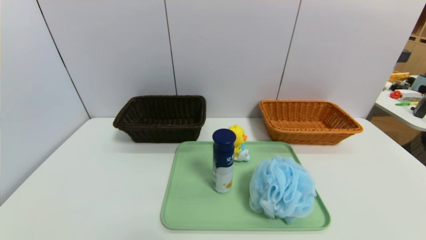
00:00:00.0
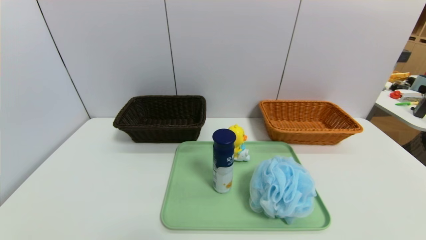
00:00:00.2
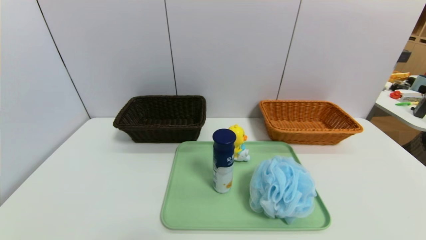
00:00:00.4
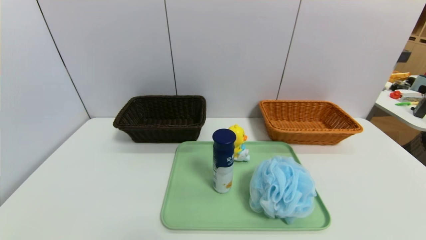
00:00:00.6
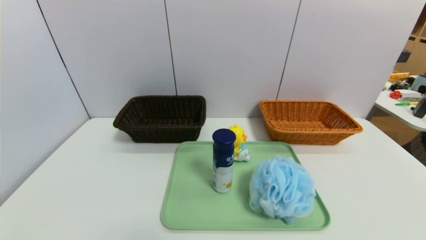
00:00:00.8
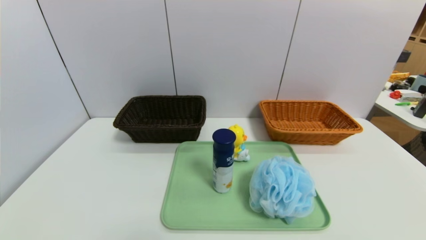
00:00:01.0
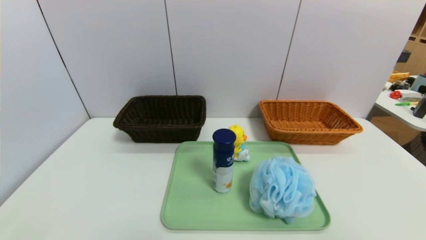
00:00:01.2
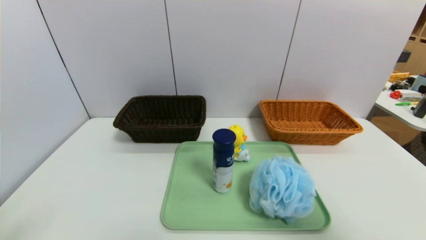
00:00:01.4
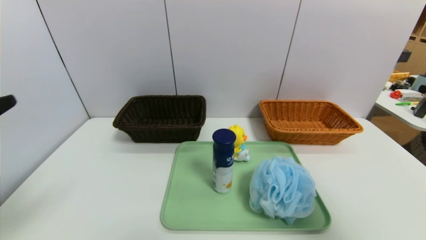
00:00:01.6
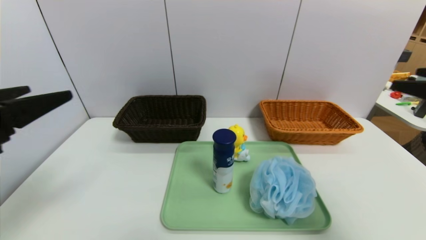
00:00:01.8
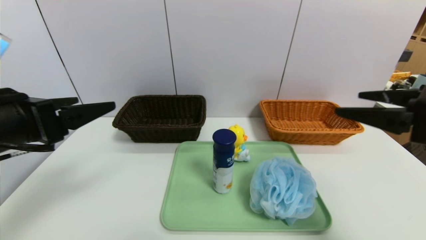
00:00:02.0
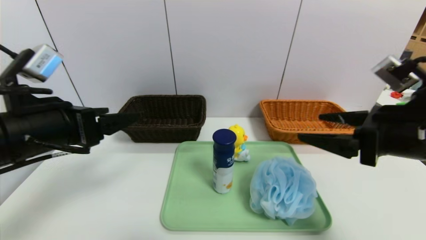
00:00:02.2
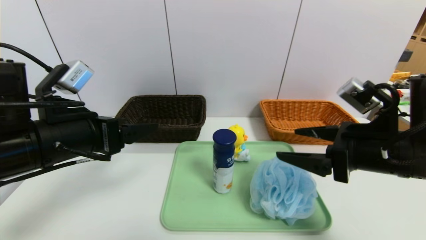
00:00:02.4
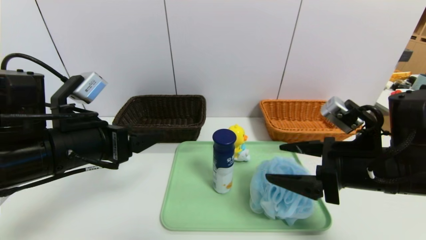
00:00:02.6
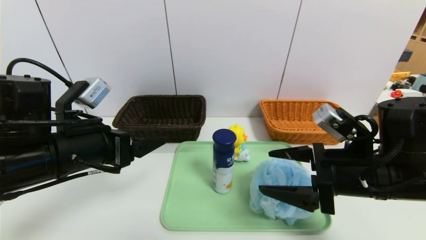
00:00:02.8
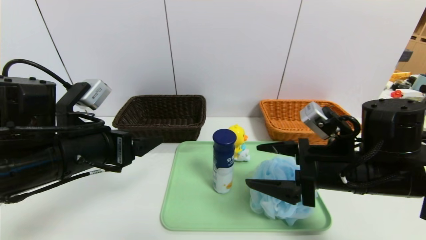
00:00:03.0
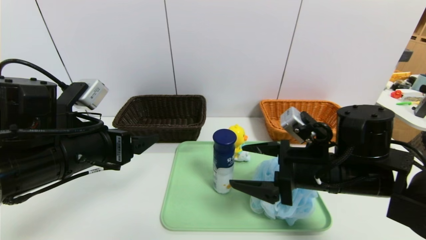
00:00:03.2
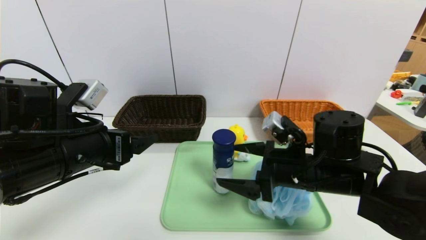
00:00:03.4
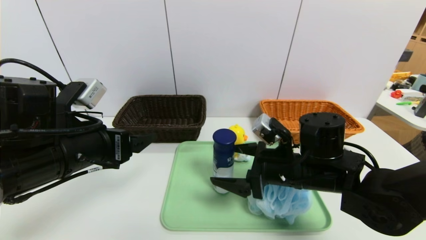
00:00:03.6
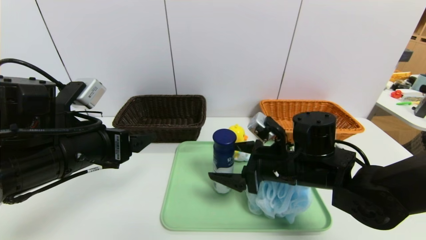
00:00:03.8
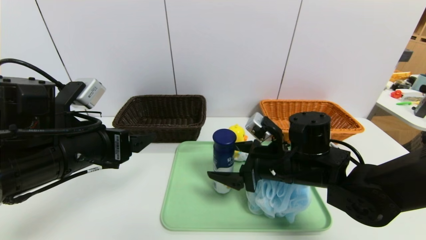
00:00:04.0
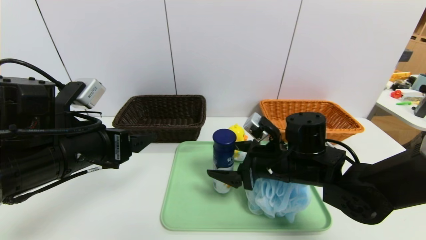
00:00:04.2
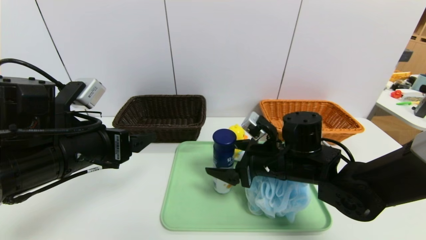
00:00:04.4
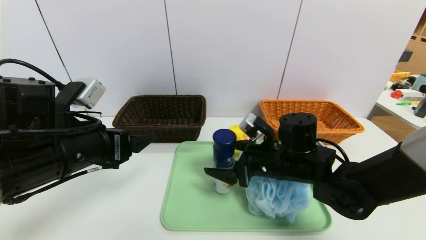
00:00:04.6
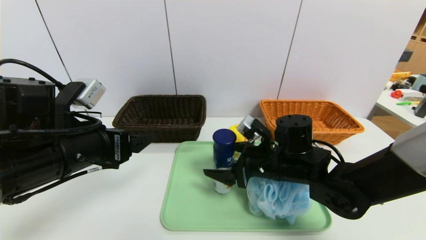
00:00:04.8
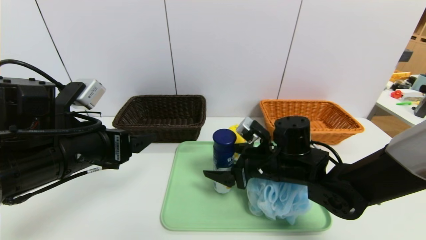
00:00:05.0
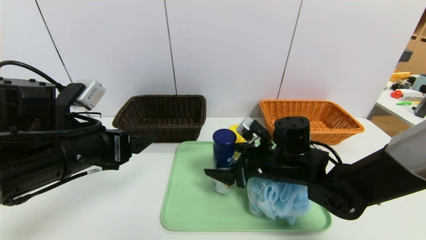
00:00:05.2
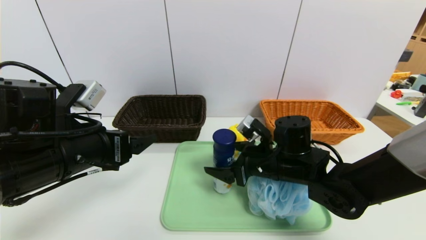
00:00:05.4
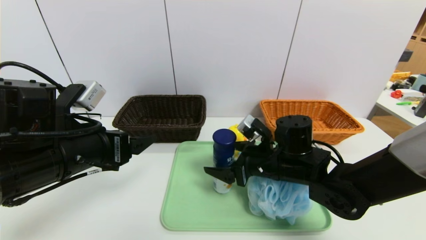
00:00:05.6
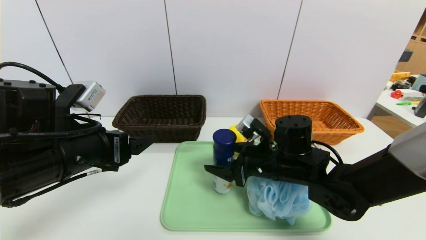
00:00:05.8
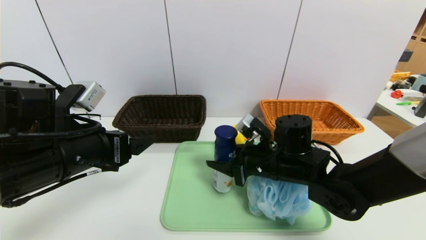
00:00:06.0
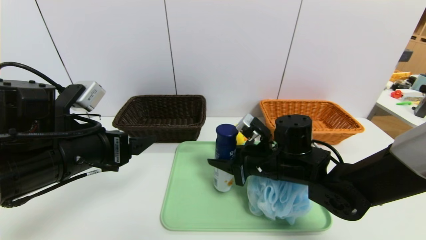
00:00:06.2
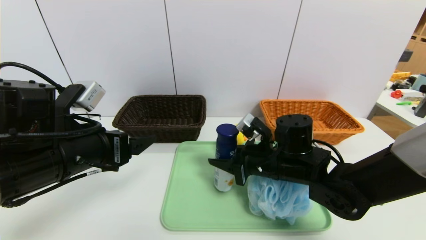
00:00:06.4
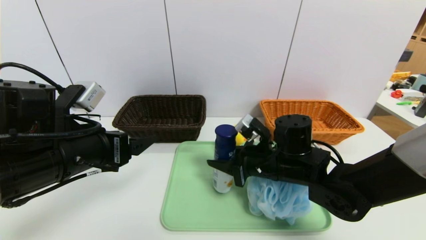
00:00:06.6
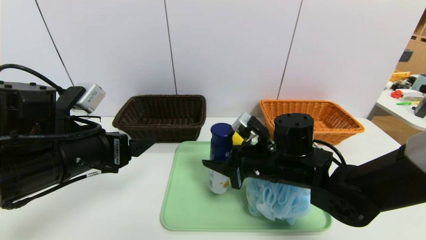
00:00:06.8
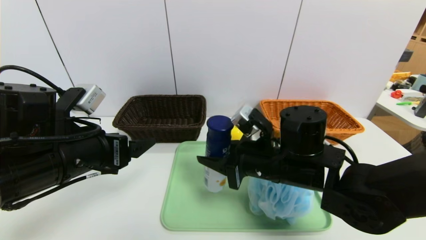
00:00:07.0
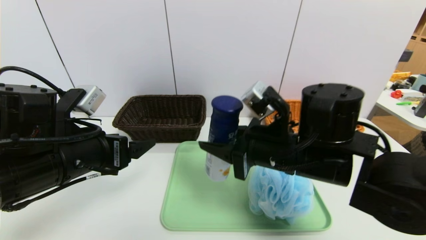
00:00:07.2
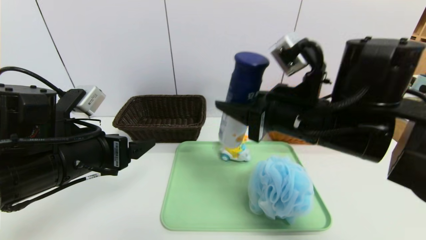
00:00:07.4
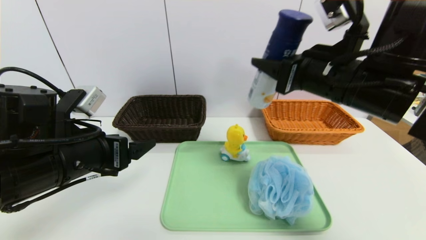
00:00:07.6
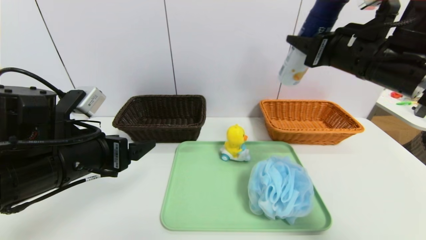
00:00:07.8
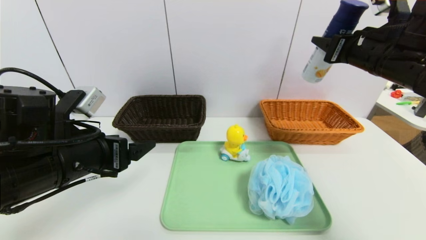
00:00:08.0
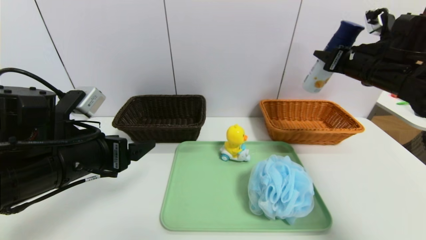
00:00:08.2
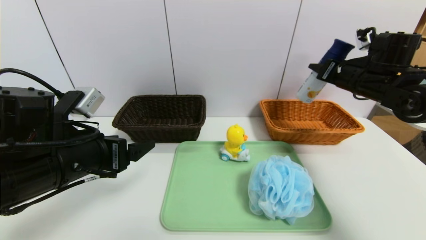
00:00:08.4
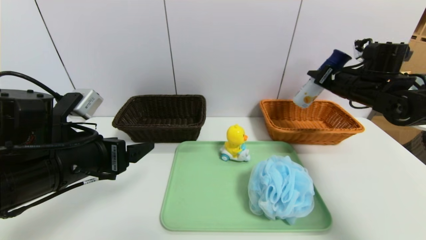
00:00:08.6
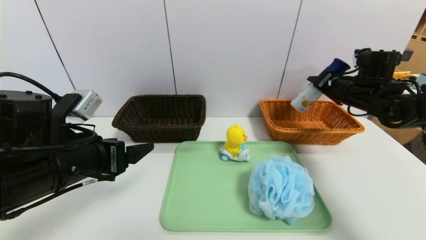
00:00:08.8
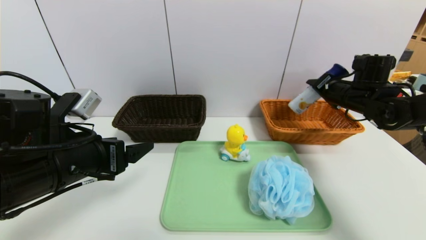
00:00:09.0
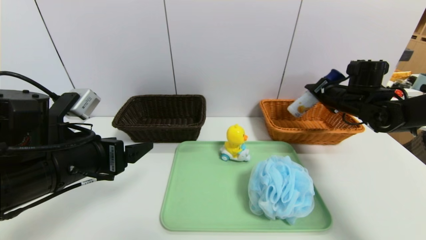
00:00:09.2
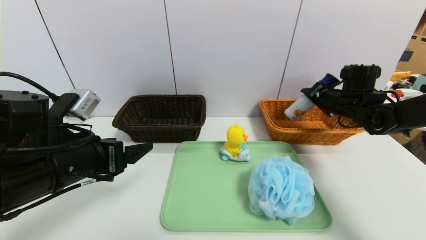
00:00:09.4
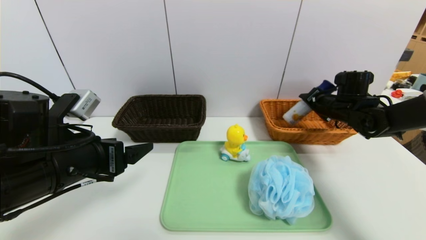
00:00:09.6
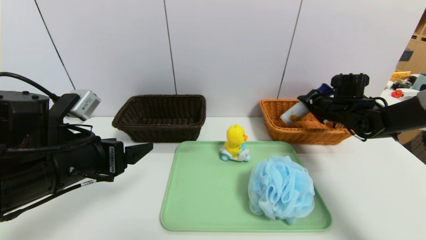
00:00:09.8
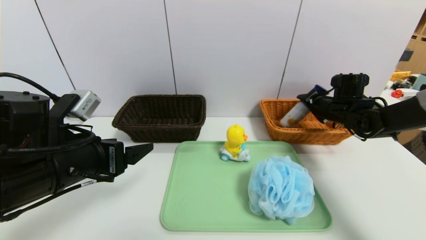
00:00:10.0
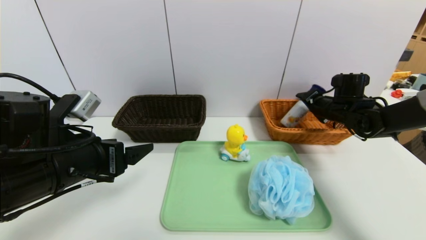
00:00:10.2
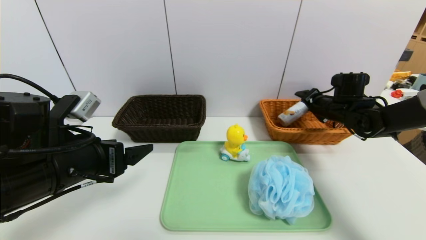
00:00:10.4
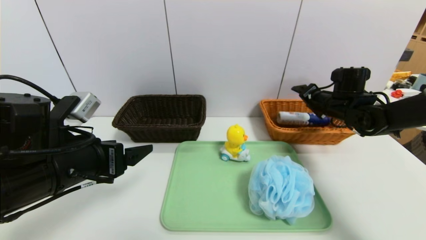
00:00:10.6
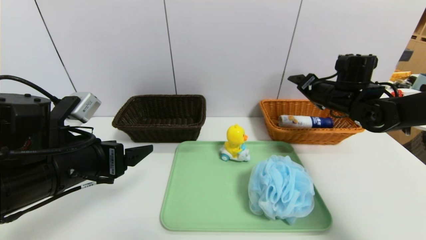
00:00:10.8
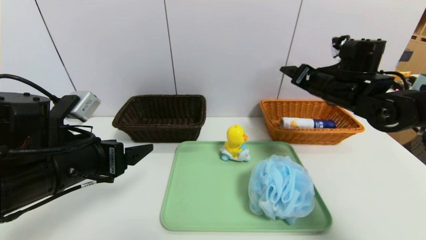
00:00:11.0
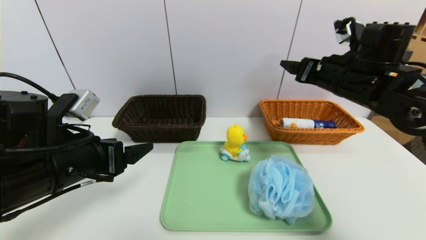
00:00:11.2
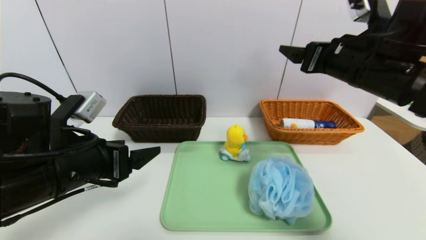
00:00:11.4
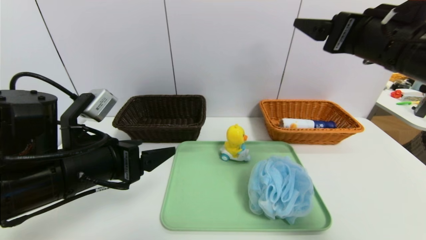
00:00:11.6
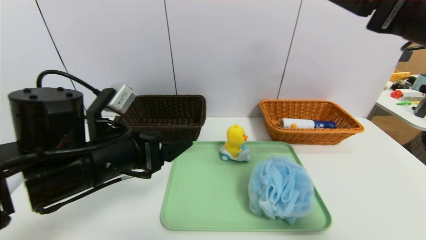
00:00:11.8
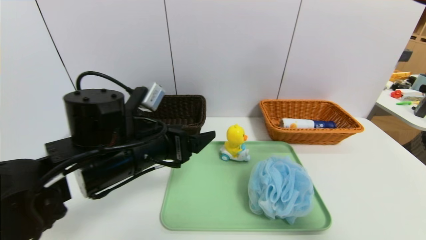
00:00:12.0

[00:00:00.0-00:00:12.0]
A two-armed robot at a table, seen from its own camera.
Task of the whole recording: place the food in the right basket with the right gripper, and place the non food items in the left basket with the left gripper.
Step, 00:00:00.0 to 00:00:10.4: Grasp the yogurt and put it in the right basket.
00:00:00.0 to 00:00:01.6: Both grippers travel together upward and forward, roughly 25 cm.
00:00:01.6 to 00:00:03.0: The right gripper heads downward, to the left and forward, covering about 25 cm. The left gripper shifts roughly 15 cm forward, to the right and downward.
00:00:03.0 to 00:00:04.4: The right gripper moves to the left and forward, some 10 cm.
00:00:04.4 to 00:00:06.0: The right gripper closes its fingers.
00:00:06.0 to 00:00:07.6: The right gripper heads upward, covering about 20 cm.
00:00:07.6 to 00:00:09.0: The right gripper shifts some 20 cm forward, to the right and downward.
00:00:09.0 to 00:00:10.4: The right gripper shifts by approximately 5 cm, and opens its fingers.
00:00:10.4 to 00:00:12.0: The left gripper moves to the right, approximately 10 cm. Meanwhile the right gripper is displaced backward and upward by roughly 35 cm.

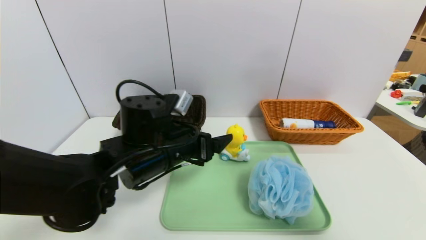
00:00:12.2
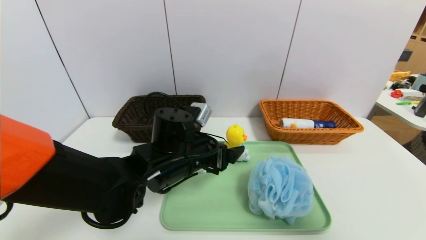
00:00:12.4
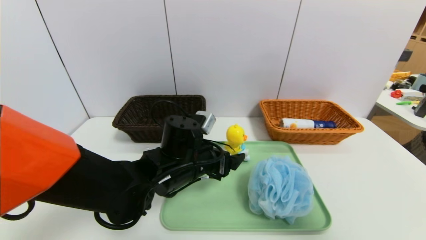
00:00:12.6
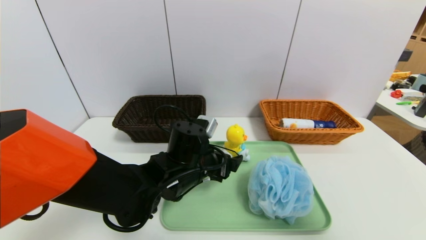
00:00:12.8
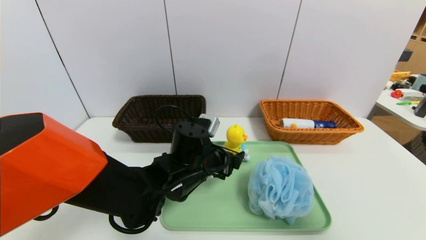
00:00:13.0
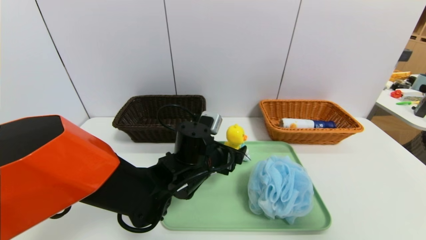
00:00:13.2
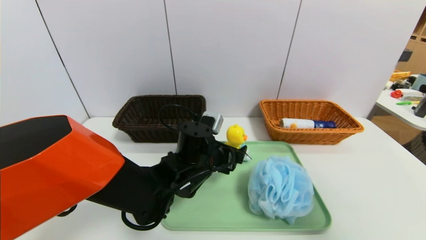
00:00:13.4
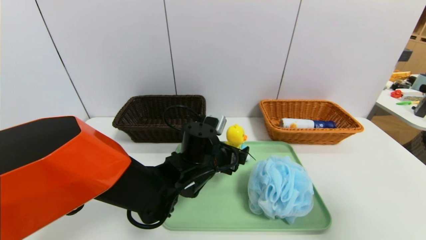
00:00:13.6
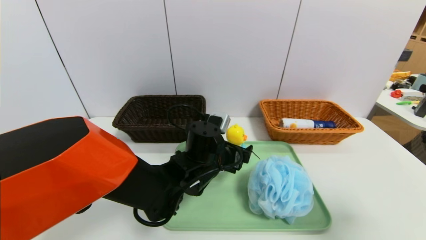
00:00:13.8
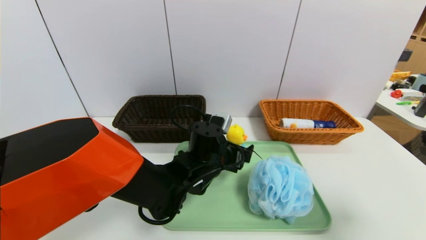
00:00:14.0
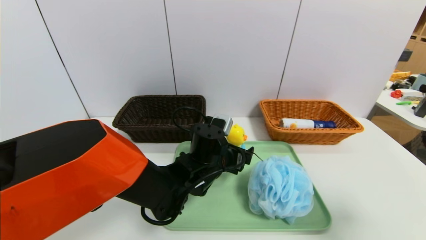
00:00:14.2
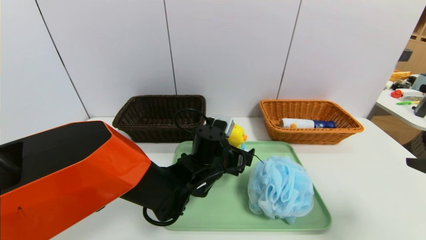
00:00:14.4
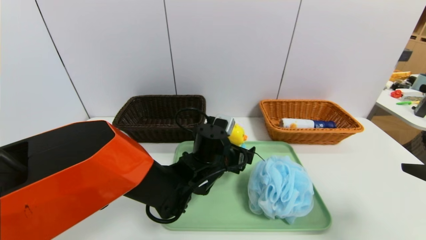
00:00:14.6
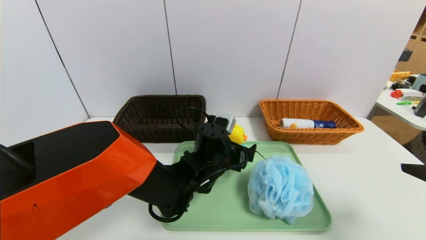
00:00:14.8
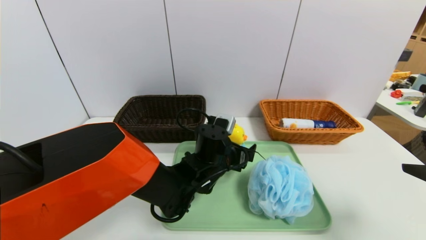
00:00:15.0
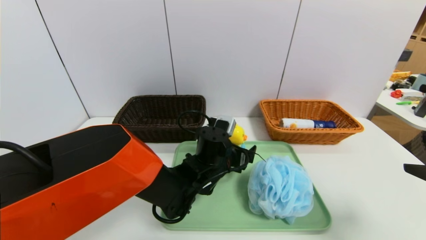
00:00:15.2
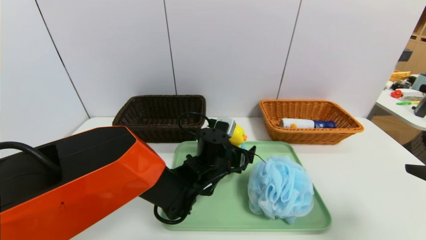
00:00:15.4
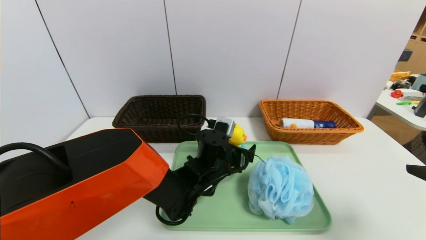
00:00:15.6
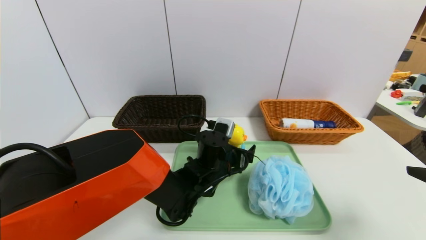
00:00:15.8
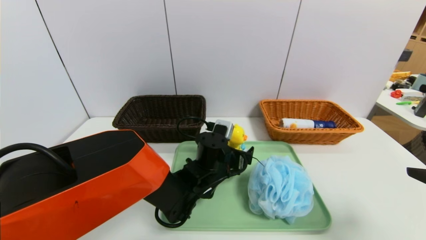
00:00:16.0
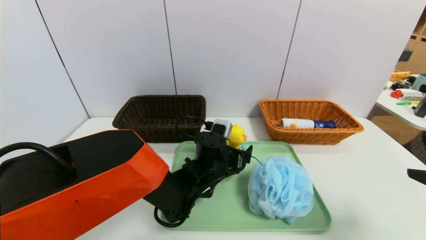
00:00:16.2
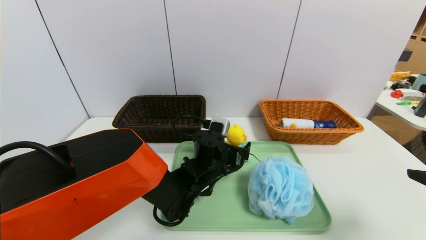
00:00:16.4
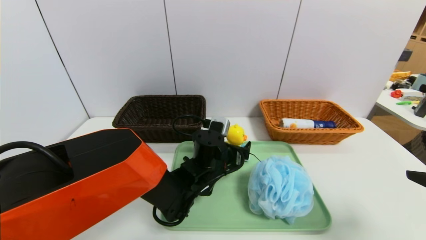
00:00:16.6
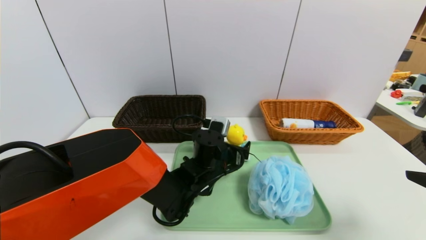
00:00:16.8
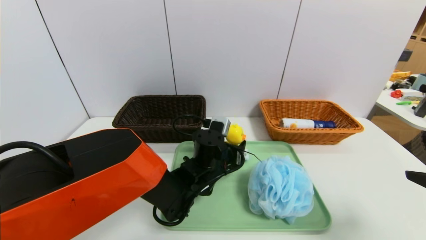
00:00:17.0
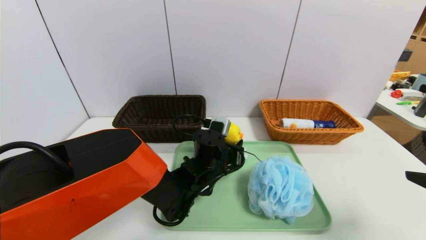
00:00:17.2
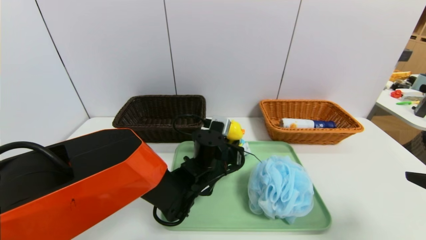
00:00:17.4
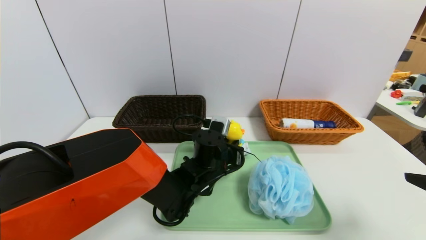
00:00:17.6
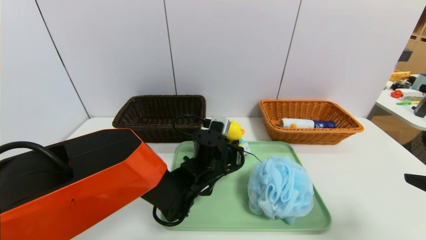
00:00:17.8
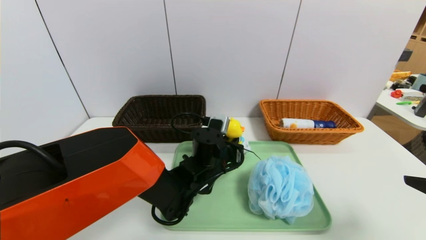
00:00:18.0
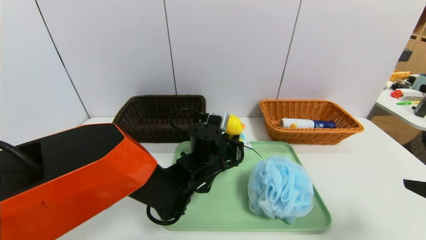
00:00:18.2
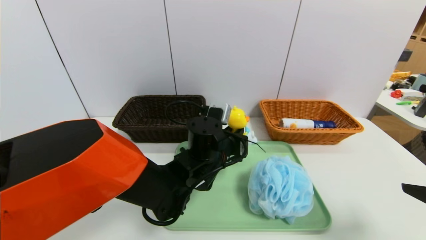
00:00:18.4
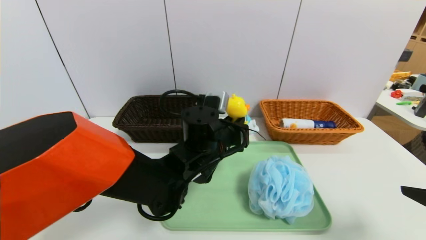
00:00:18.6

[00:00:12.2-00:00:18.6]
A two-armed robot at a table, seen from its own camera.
Task of the whole recording: place the food in the right basket with the right gripper, and place the non food items in the left basket with the left gripper.
00:00:12.2 to 00:00:13.8: The right gripper goes roughly 10 cm downward, while the left gripper travels to the right and downward by roughly 10 cm.
00:00:13.8 to 00:00:15.4: There are only small adjustments of the grippers.
00:00:15.4 to 00:00:17.0: The left gripper closes its fingers.
00:00:17.0 to 00:00:18.6: The left gripper shifts approximately 5 cm upward, and closes its fingers.
